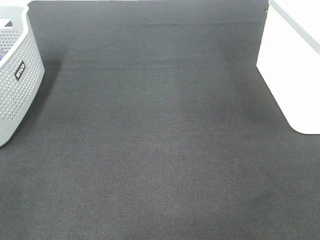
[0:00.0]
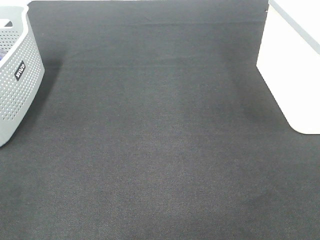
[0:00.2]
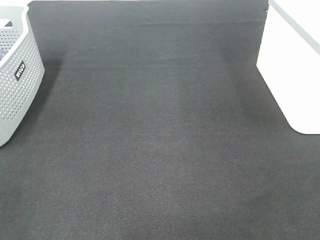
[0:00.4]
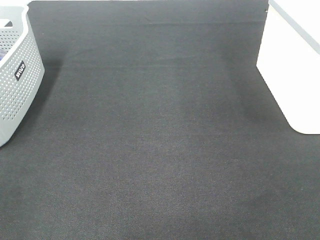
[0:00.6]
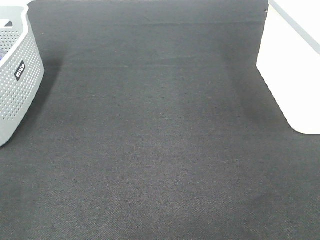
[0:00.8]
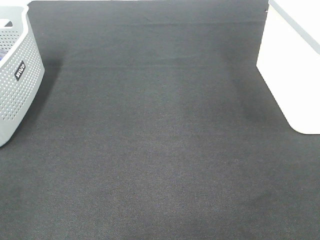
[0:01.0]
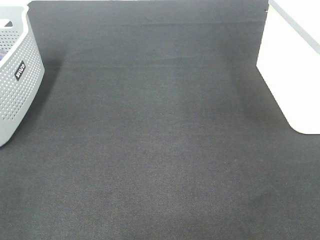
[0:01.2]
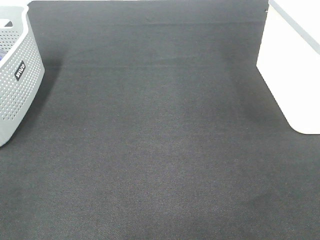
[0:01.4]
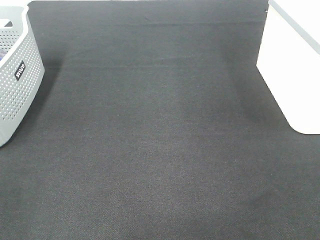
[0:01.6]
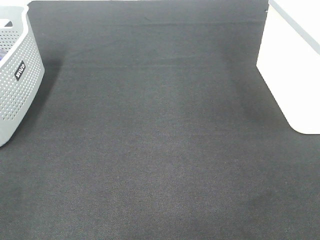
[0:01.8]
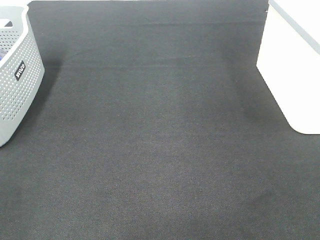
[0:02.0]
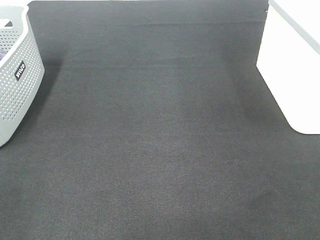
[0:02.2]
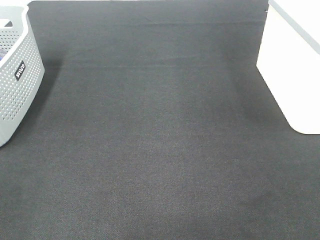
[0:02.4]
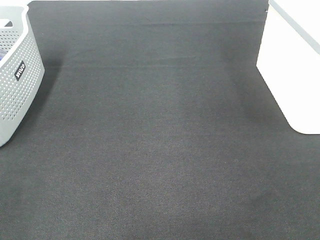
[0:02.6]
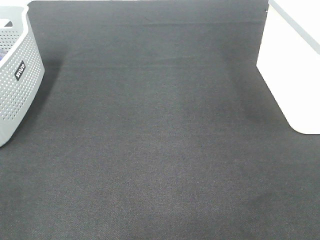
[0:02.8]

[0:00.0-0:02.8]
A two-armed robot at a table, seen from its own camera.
0:01.4 to 0:02.8: The two grippers keep their place.

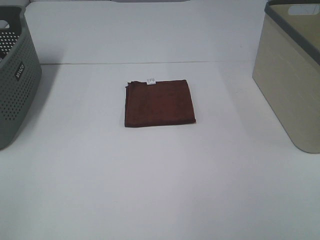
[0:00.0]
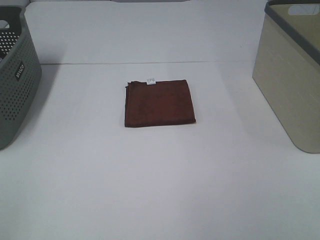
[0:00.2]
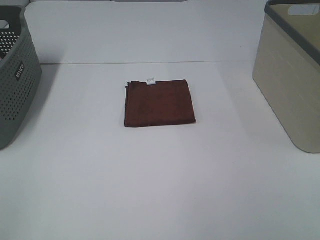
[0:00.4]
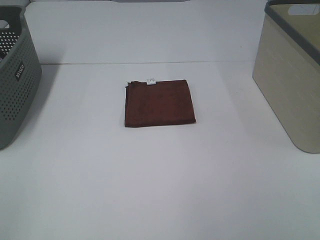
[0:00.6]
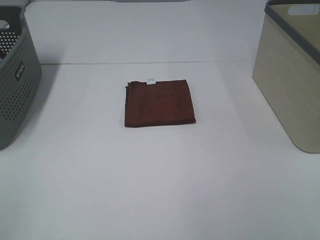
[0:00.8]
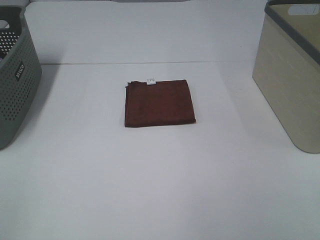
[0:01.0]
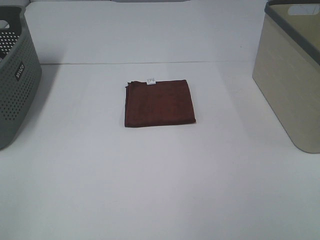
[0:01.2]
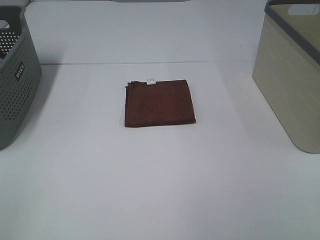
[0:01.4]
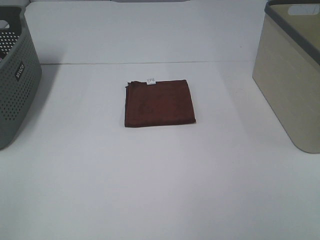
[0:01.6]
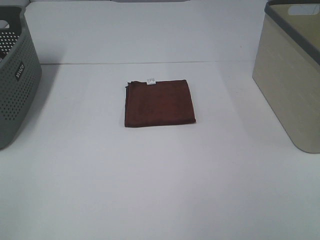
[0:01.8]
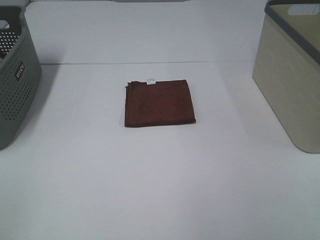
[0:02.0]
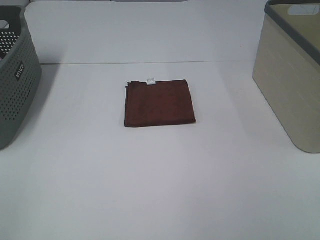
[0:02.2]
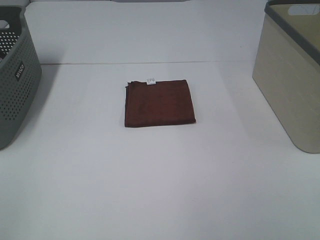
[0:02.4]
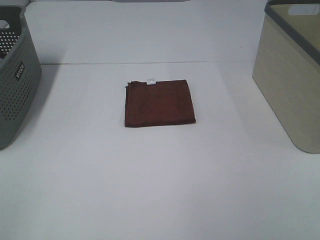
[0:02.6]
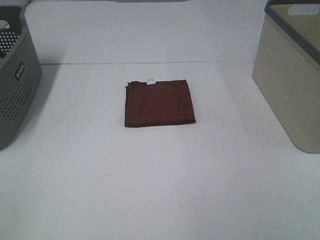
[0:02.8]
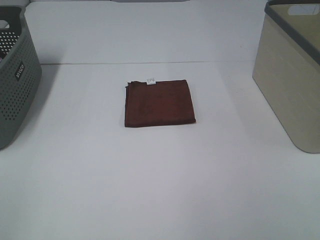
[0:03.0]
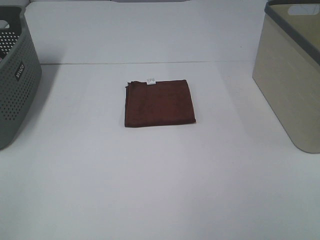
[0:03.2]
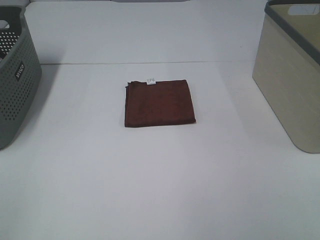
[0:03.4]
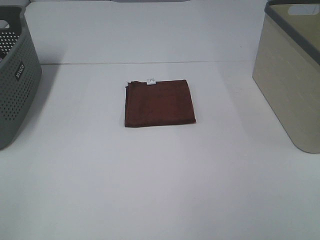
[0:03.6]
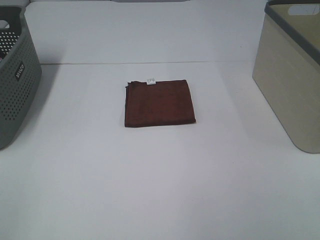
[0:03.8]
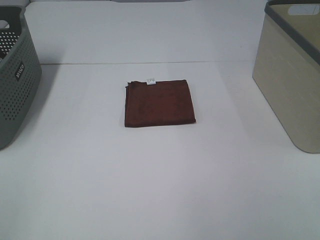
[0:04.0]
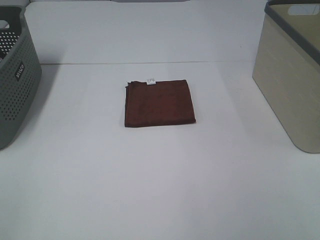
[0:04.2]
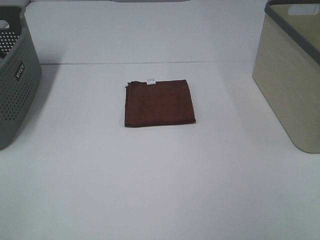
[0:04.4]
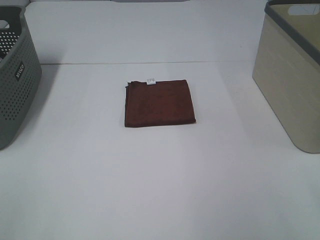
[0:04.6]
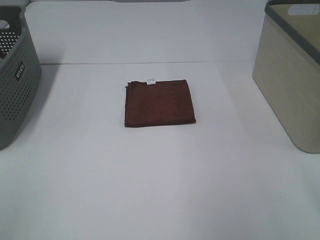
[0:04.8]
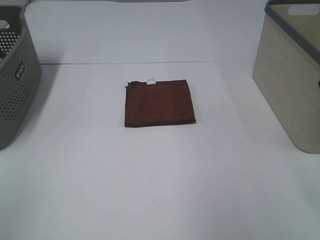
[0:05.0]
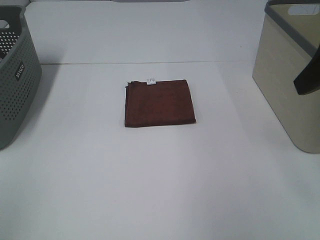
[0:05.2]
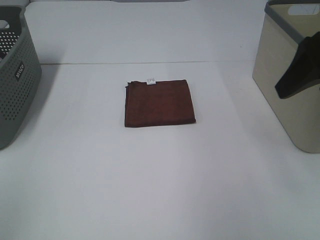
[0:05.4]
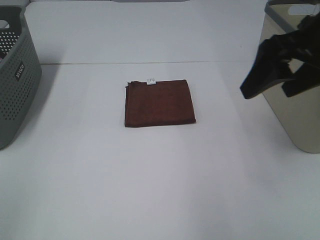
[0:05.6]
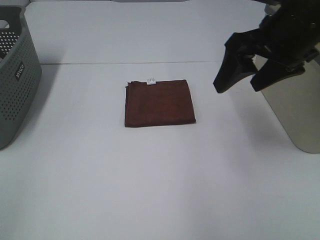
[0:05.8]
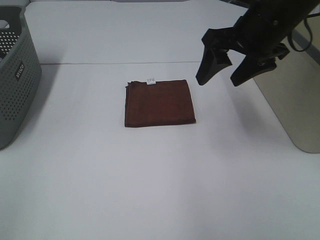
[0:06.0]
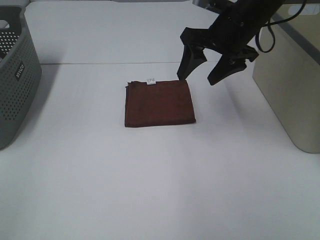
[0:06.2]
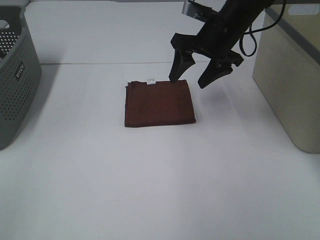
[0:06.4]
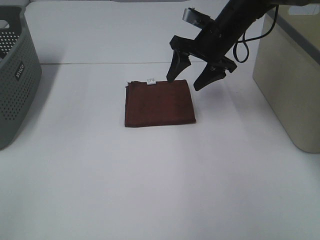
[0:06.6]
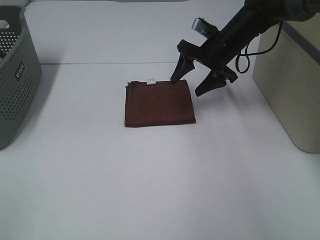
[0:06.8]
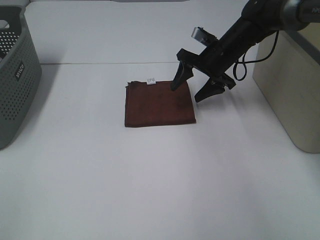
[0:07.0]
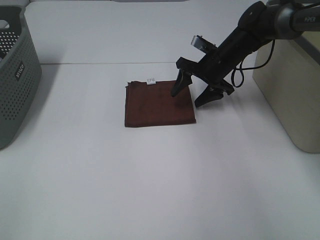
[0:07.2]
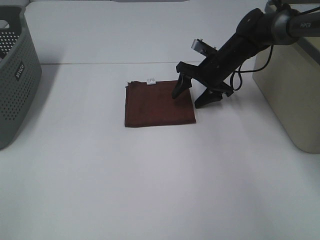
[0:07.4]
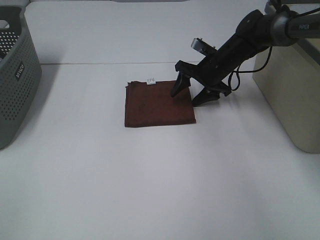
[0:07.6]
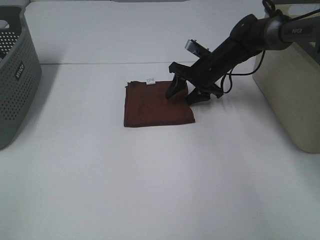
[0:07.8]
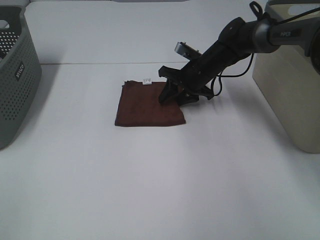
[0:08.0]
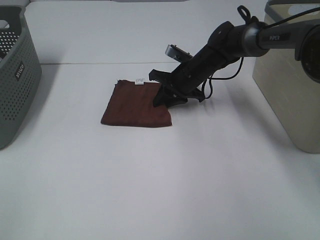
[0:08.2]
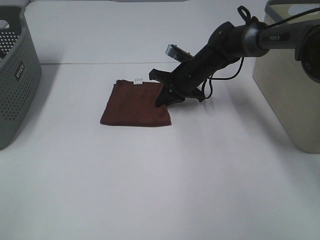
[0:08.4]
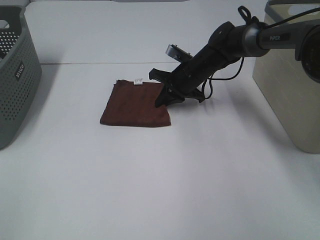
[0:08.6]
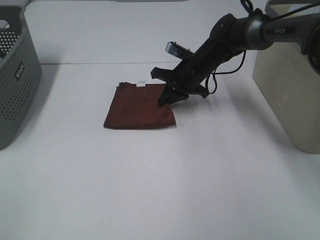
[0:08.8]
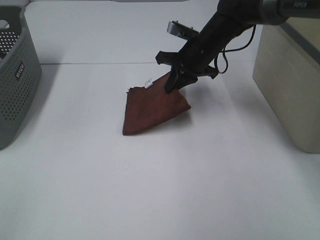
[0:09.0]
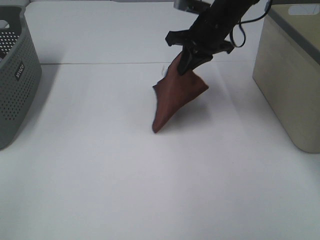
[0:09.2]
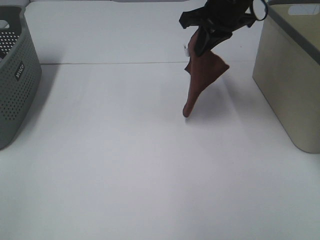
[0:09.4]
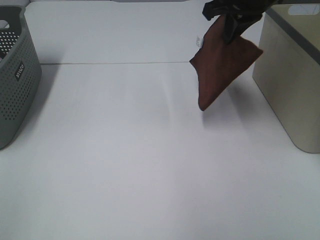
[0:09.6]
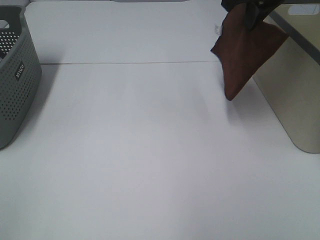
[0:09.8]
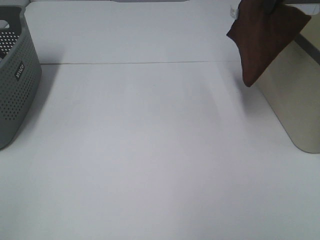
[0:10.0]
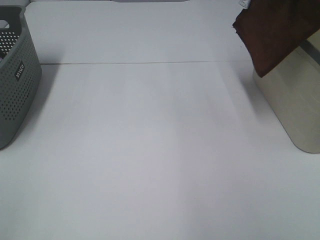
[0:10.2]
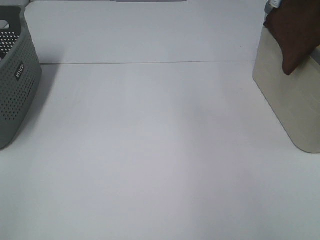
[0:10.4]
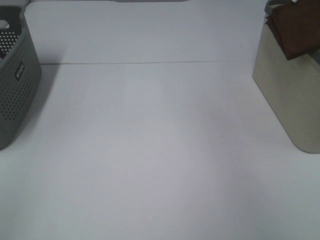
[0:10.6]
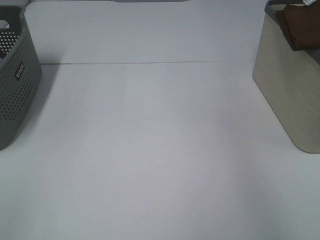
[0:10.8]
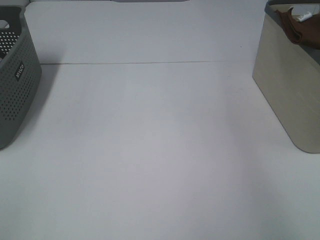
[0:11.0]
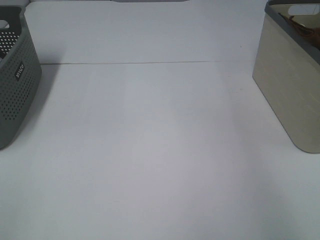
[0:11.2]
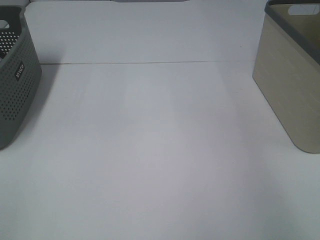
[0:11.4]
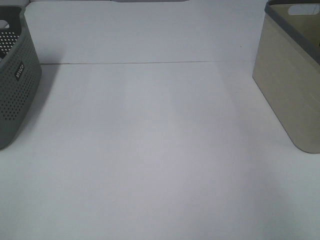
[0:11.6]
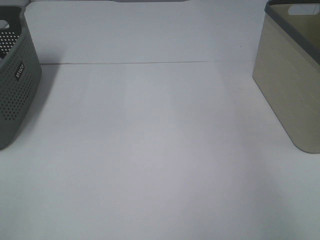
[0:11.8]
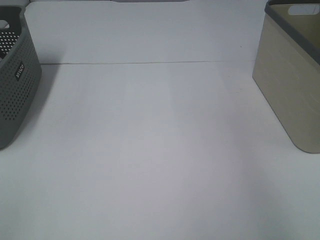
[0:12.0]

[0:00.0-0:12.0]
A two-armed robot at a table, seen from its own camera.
Step, 0:00.0 to 0:08.4: Right hand: grab the folded brown towel.
Step, 0:08.6 to 0:11.8: Right hand: place the brown towel in right basket.
0:00.0 to 0:03.0: Neither gripper changes place.
0:04.4 to 0:06.0: The right gripper travels forward and to the left by roughly 30 cm.
0:06.0 to 0:07.6: The right gripper travels downward and forward by approximately 20 cm.
0:07.6 to 0:09.0: The right gripper heads upward, covering roughly 5 cm, and closes.
0:09.0 to 0:10.4: The right gripper goes some 30 cm upward and to the right.
0:10.4 to 0:12.0: The right gripper goes about 10 cm to the right, and opens its fingers.

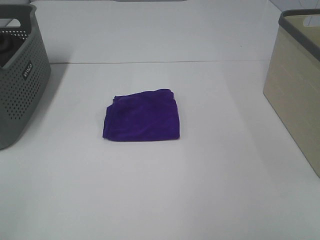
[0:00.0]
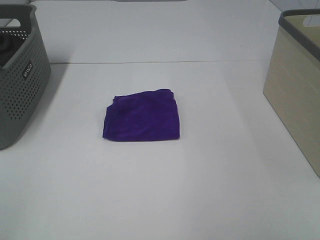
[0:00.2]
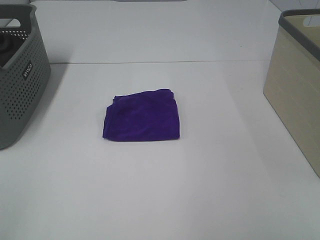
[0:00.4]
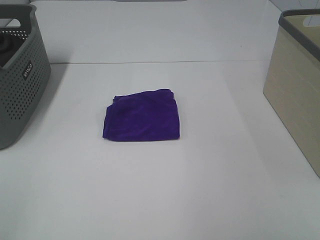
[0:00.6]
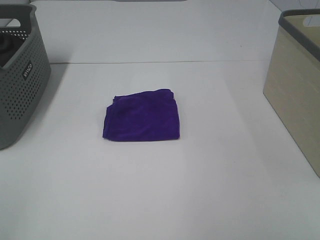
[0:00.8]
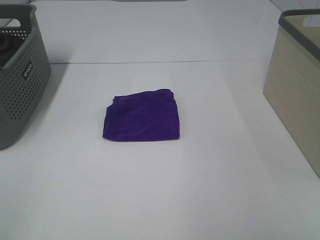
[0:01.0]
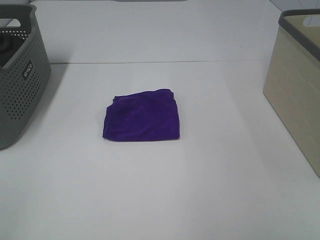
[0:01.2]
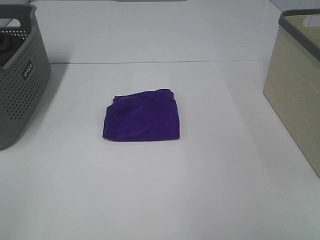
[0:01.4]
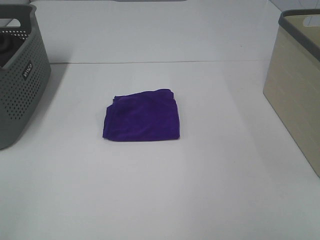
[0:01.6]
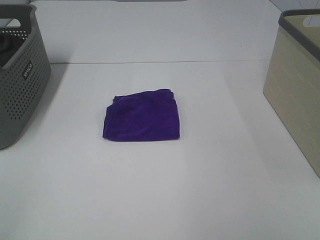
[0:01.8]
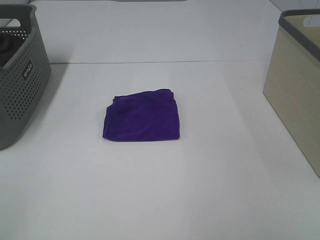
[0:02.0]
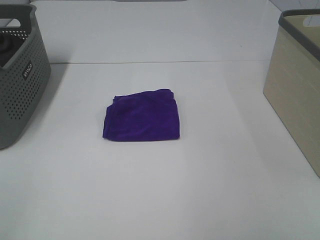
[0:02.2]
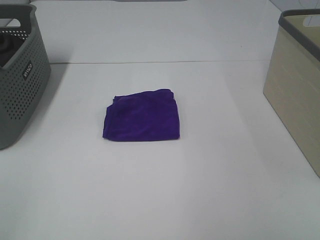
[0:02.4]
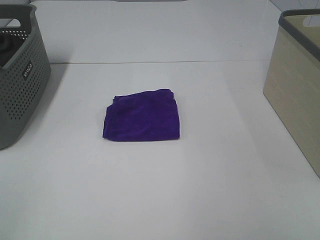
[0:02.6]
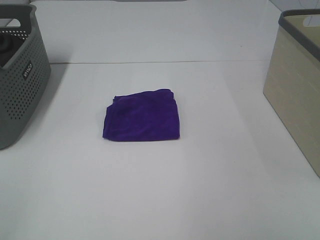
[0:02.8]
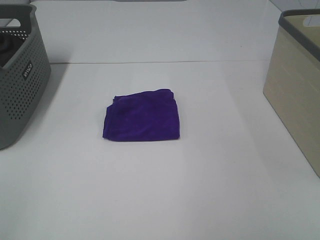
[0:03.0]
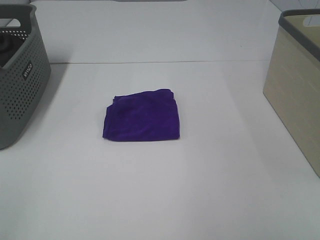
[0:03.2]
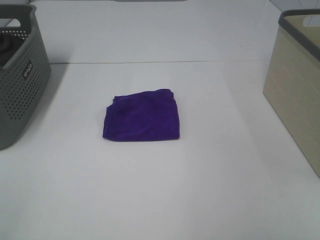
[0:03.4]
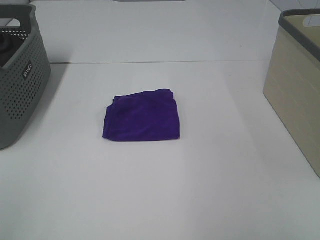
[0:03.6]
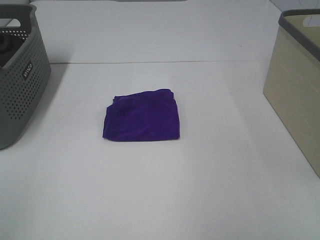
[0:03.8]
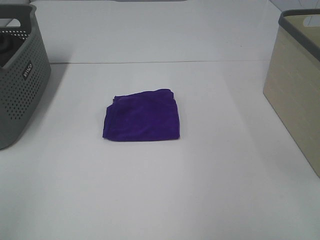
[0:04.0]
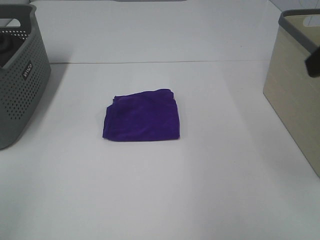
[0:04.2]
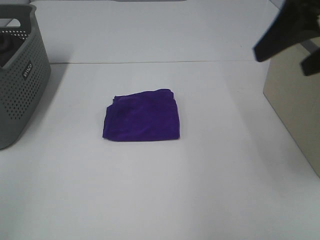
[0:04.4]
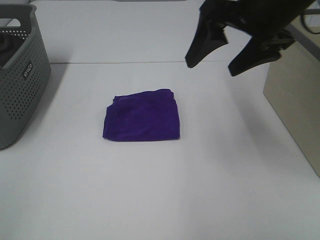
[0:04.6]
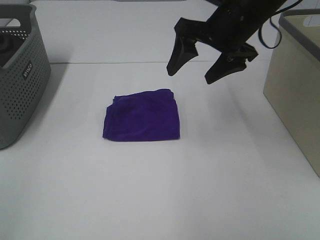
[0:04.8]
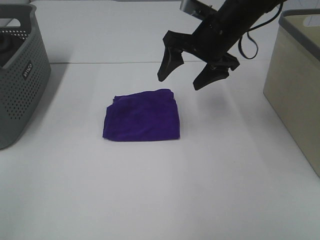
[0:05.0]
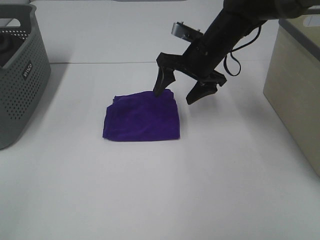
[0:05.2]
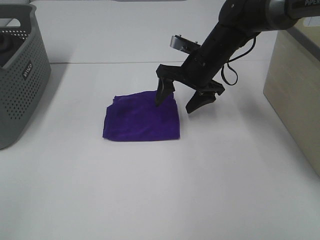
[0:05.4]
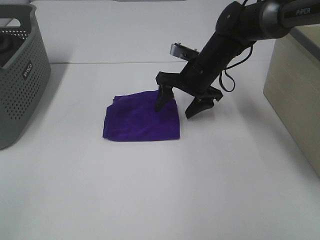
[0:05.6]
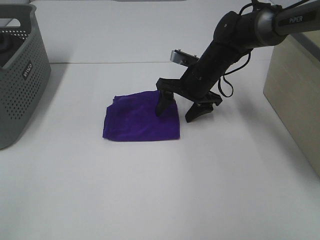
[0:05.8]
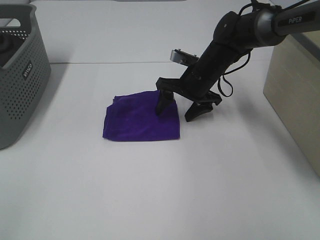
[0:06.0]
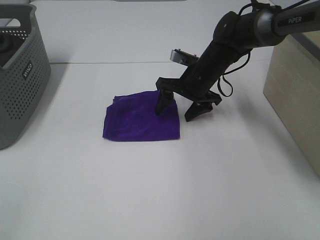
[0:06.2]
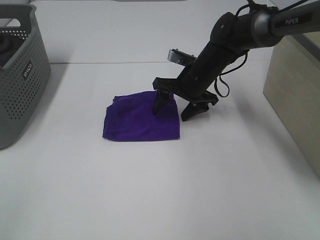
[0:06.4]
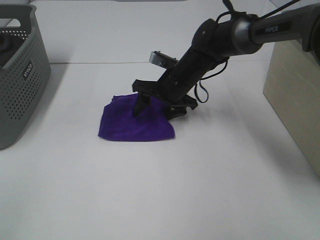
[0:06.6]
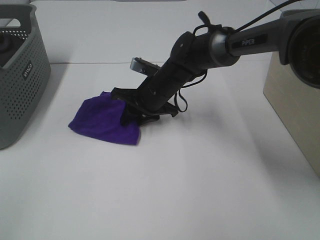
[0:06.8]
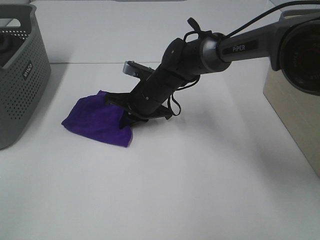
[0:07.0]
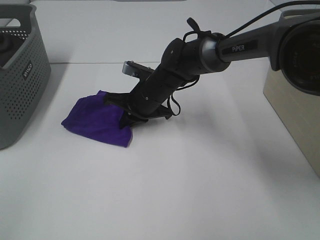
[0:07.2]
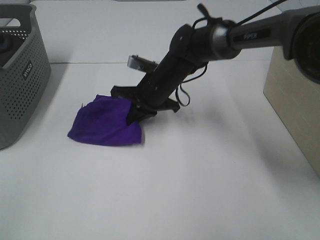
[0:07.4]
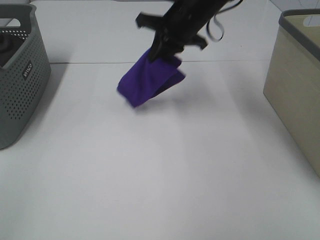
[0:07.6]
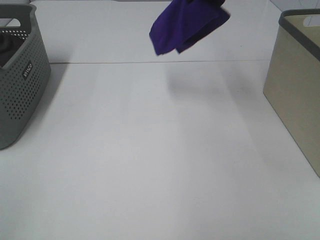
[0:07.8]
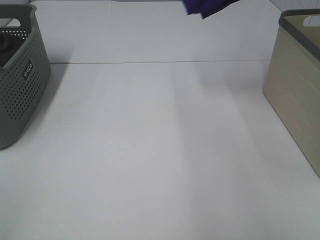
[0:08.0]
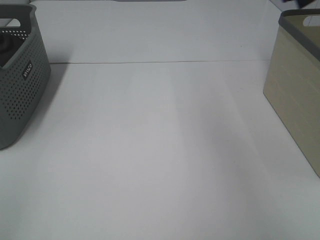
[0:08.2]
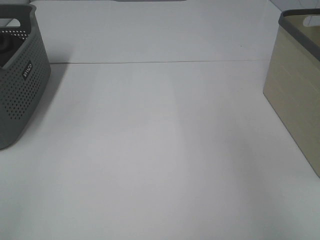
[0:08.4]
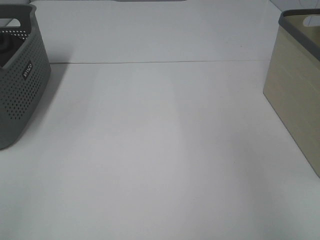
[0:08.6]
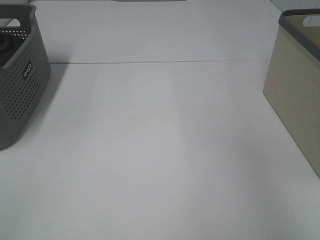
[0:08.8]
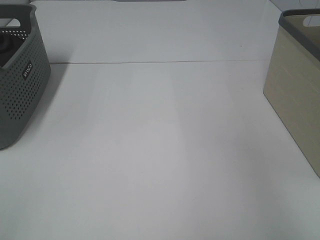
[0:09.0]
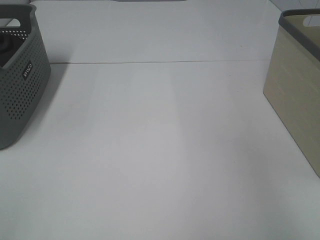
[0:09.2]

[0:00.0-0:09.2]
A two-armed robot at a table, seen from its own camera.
Step, 0:00.0 to 0:07.0: Right hand: grab the folded purple towel.
0:00.0 to 0:03.0: Neither gripper changes place.
0:03.0 to 0:04.6: The right gripper shifts approximately 35 cm forward and to the left.
0:04.6 to 0:06.2: The right gripper moves downward and forward, roughly 25 cm.
0:06.2 to 0:07.6: The right gripper goes approximately 15 cm upward, and closes up.
0:07.6 to 0:09.2: The right gripper heads to the right and upward, covering some 35 cm, and opens up.
